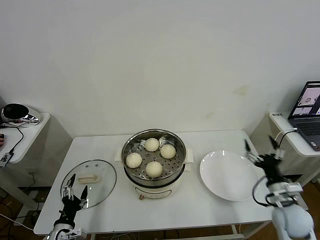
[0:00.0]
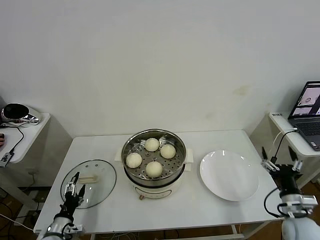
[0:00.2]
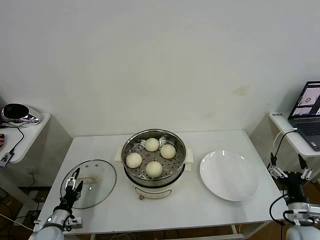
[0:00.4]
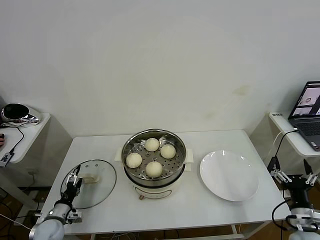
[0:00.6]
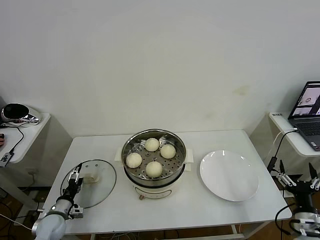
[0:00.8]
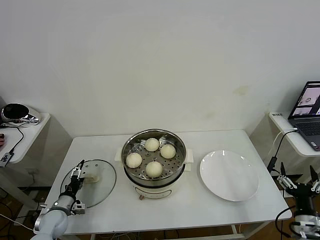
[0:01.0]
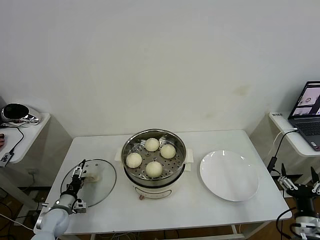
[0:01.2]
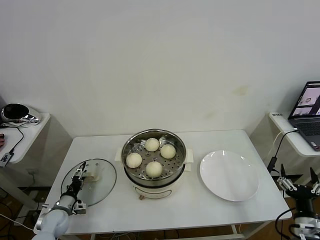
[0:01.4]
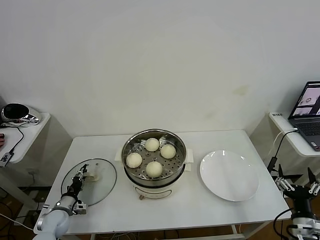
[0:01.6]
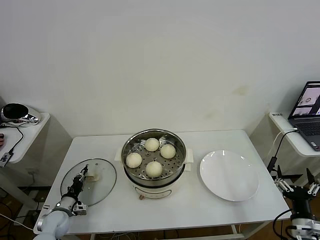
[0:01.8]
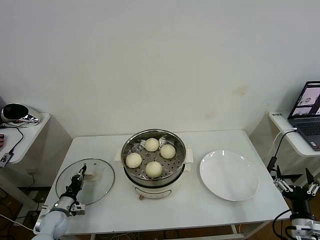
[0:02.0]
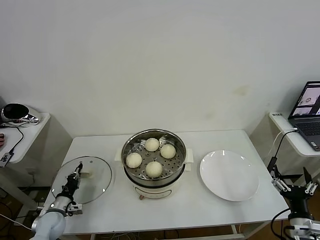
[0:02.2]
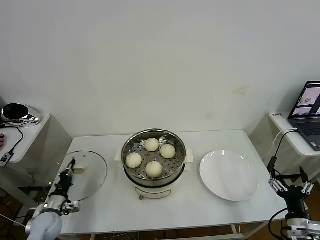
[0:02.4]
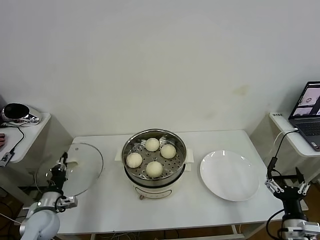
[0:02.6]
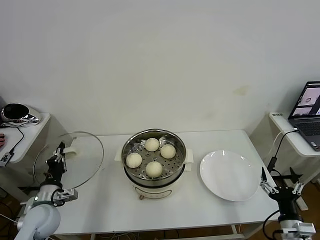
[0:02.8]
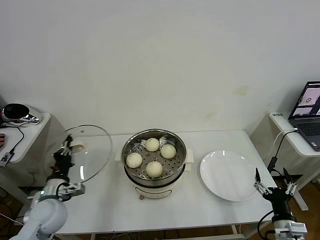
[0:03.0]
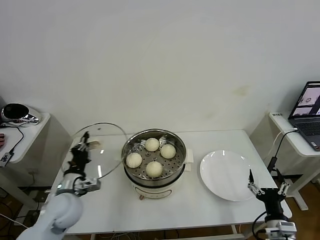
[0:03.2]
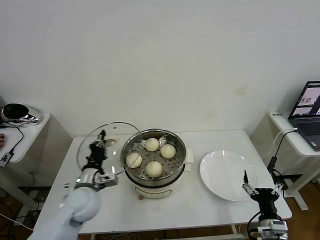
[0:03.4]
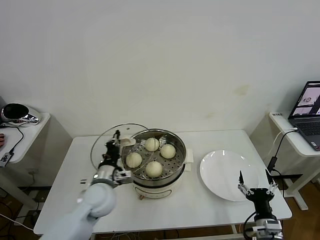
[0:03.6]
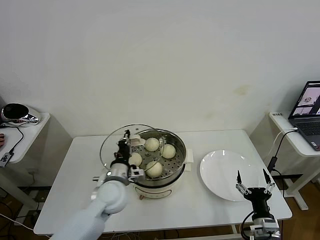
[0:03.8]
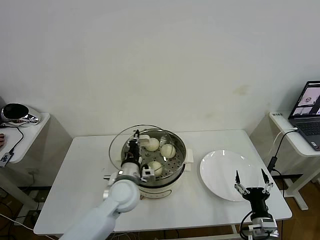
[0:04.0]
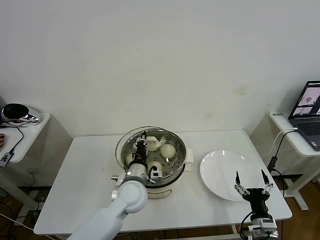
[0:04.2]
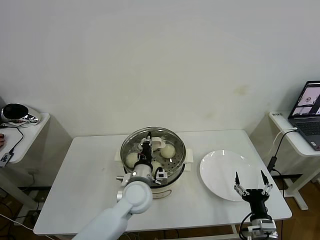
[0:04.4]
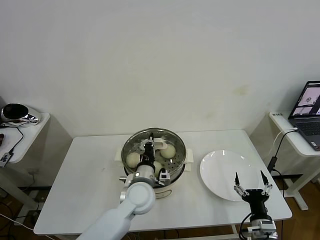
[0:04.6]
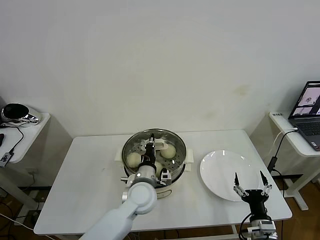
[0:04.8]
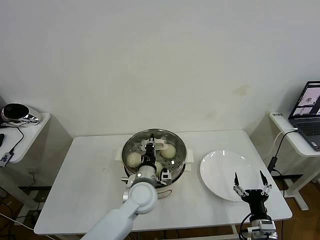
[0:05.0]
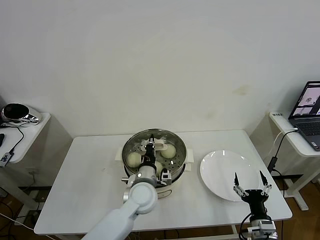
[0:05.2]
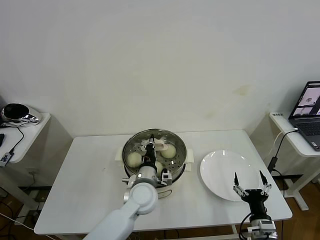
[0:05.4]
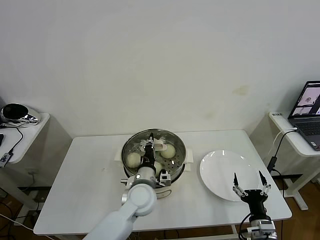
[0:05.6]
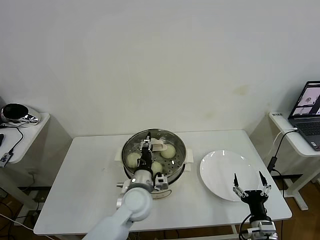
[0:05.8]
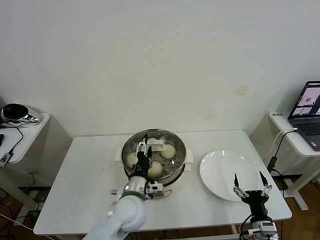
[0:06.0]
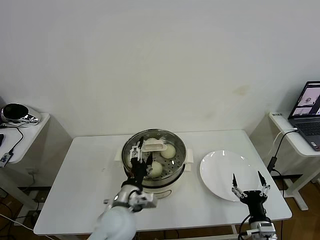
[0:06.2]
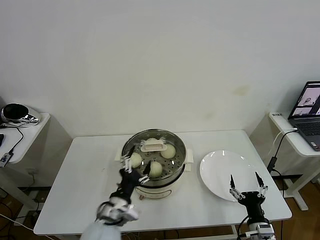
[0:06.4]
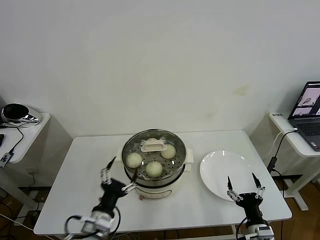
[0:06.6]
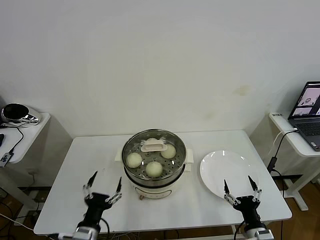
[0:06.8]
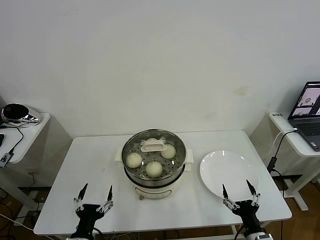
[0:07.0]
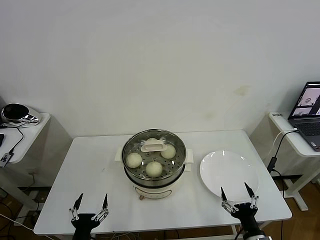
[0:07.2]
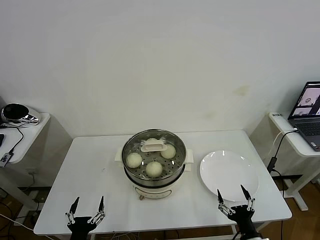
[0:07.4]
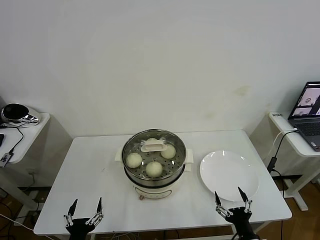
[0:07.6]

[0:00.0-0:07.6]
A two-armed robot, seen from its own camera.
Task of the whole recording: take steamed baozi put them in steamer then cover it.
Step, 0:00.0 to 0:02.0: Grasp the pot lid with left gripper.
Step, 0:02.2 to 0:05.8: Place the pot lid on the steamer with left gripper.
0:00.0 to 0:01.6: The right gripper shifts about 10 cm backward. Meanwhile the left gripper shifts approximately 15 cm forward, to the left and downward, and closes its fingers.
0:01.6 to 0:03.0: The left gripper moves upward, roughly 15 cm, and closes.
0:03.0 to 0:04.6: The right gripper moves some 5 cm; the left gripper heads to the right, covering roughly 25 cm.
0:04.6 to 0:06.0: The left gripper opens its fingers.
0:06.0 to 0:07.6: The right gripper goes some 5 cm backward; the left gripper shifts approximately 30 cm backward, to the left and downward.
